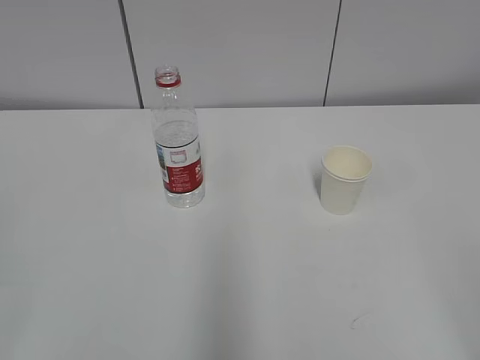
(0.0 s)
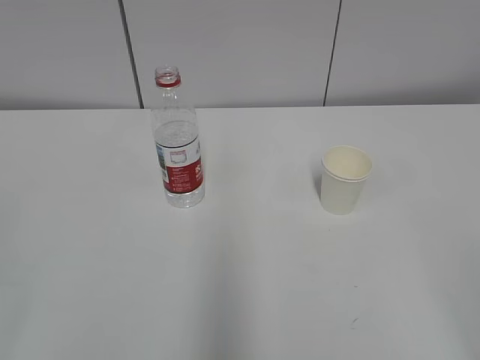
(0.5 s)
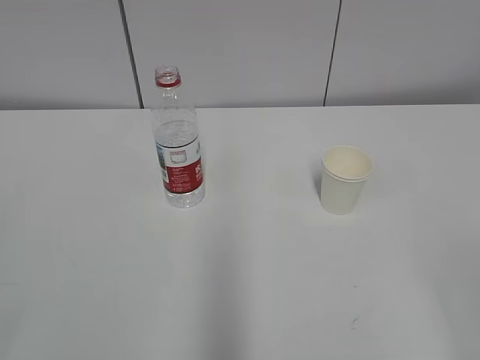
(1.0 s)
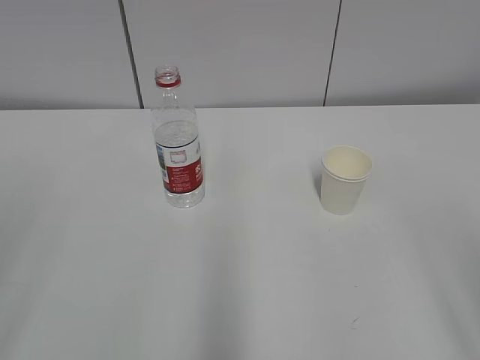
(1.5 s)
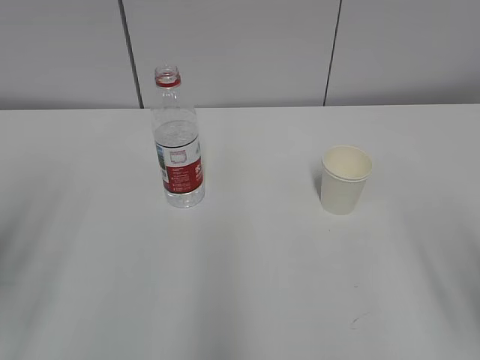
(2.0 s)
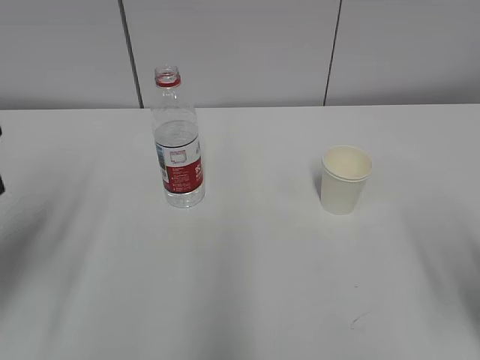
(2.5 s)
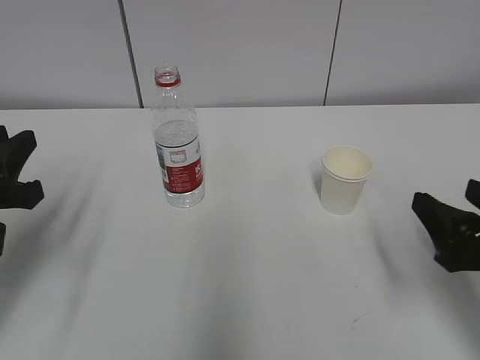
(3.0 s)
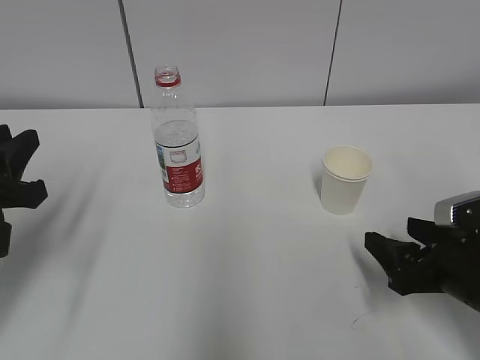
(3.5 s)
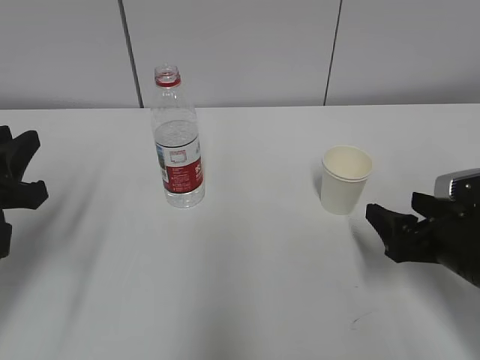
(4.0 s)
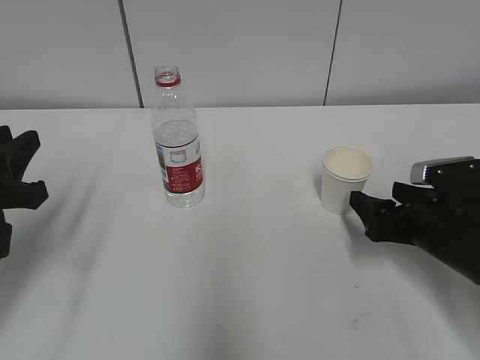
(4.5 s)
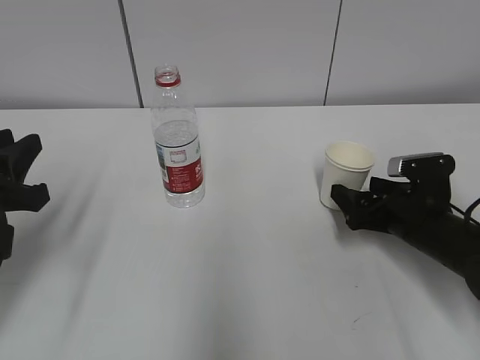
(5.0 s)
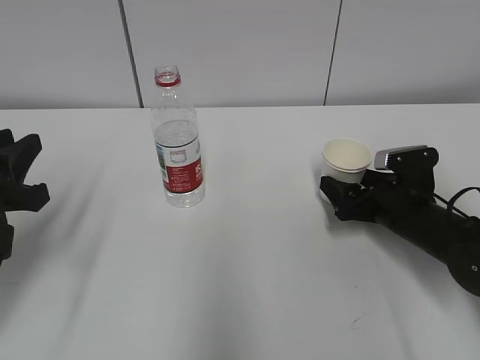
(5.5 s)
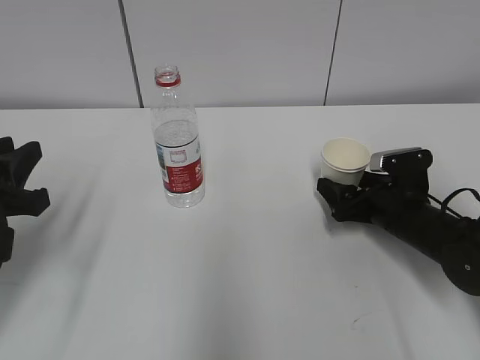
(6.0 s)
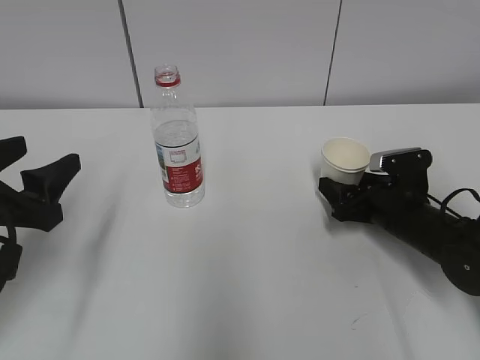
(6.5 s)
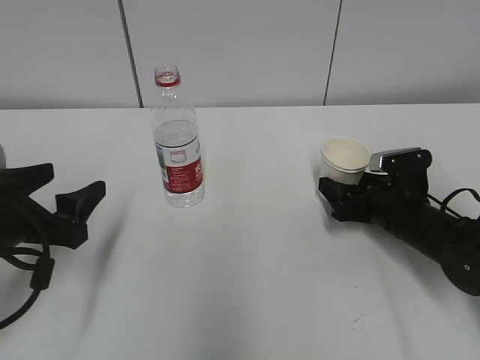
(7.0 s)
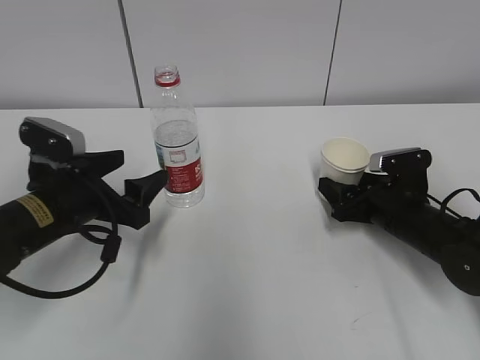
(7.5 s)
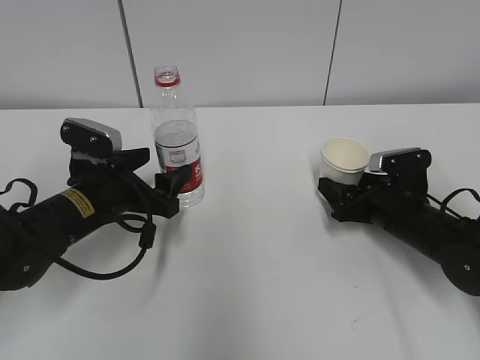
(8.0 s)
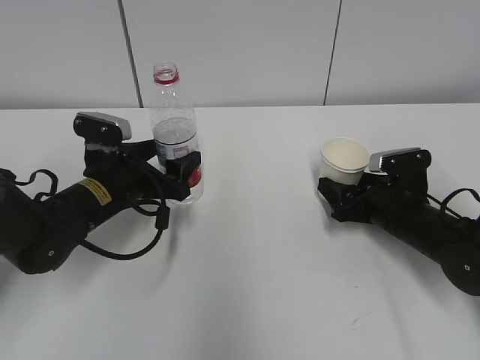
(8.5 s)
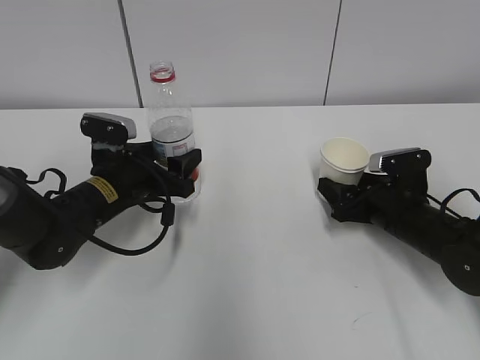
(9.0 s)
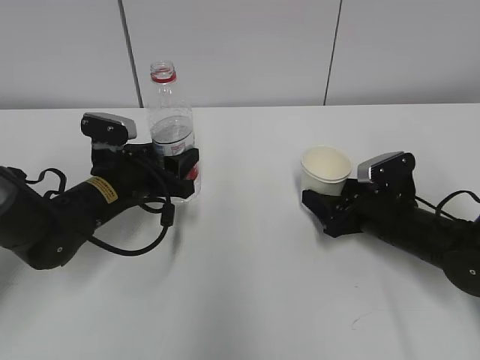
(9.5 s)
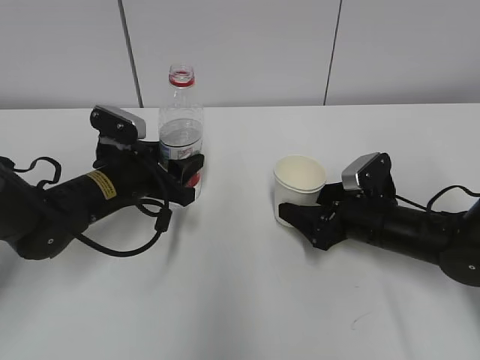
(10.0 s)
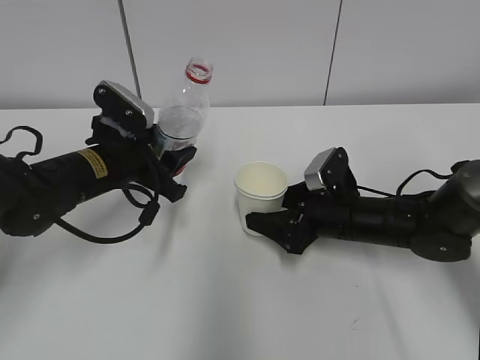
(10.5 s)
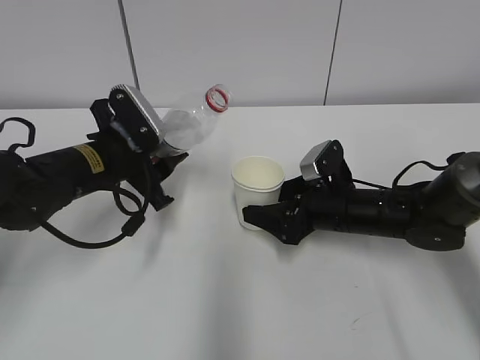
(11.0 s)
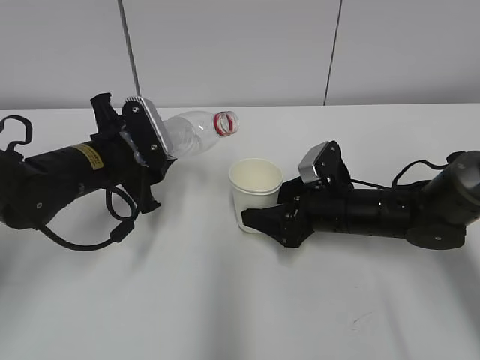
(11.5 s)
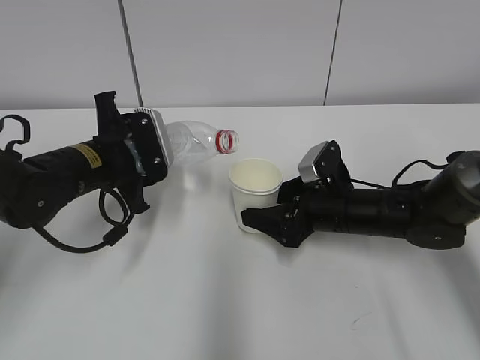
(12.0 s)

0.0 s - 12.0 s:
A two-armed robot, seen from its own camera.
Step, 0.0 s - 5.0 s: Grab the paper cup with the right hand.
Step, 5.5 s - 7.5 s: Grab the water bottle with the left hand.
2.0 s - 4.0 s: The right gripper goes approximately 20 cm forward and downward; the left gripper moves forward and downward, approximately 15 cm.
4.0 s - 6.0 s: The right gripper moves forward and downward, approximately 10 cm.
6.0 s - 8.0 s: The left gripper goes some 15 cm forward, to the right and downward, and opens. The right gripper closes up.
8.0 s - 10.0 s: The left gripper closes up.

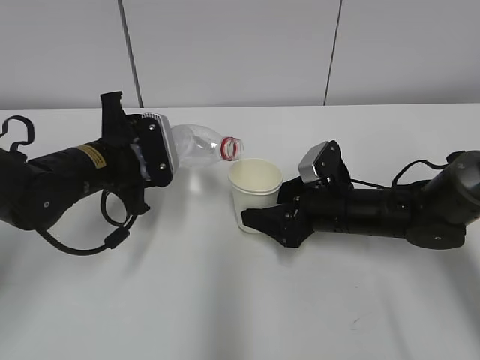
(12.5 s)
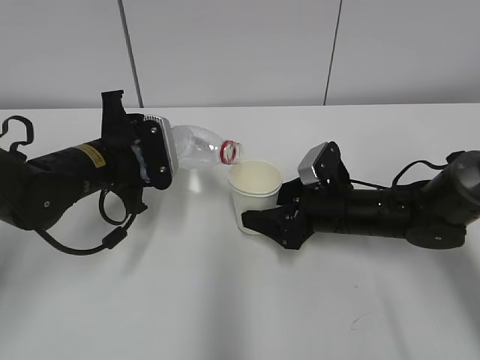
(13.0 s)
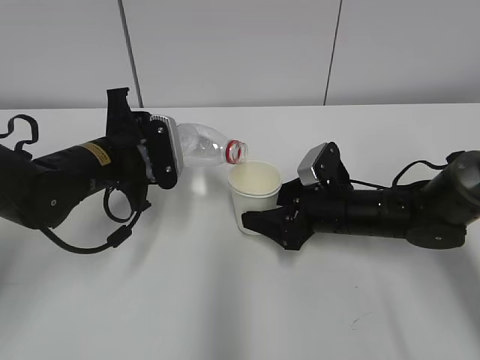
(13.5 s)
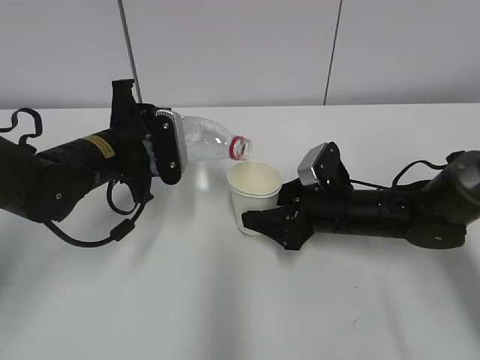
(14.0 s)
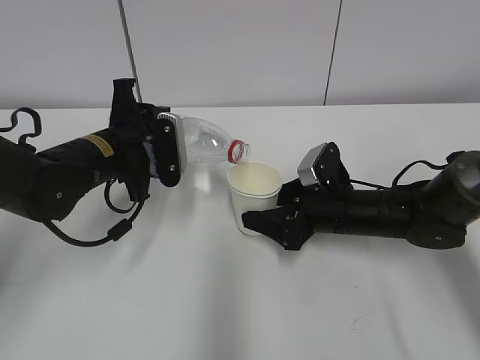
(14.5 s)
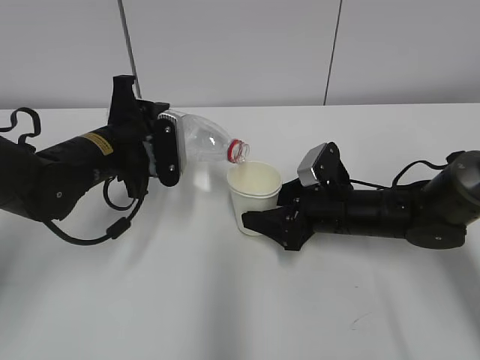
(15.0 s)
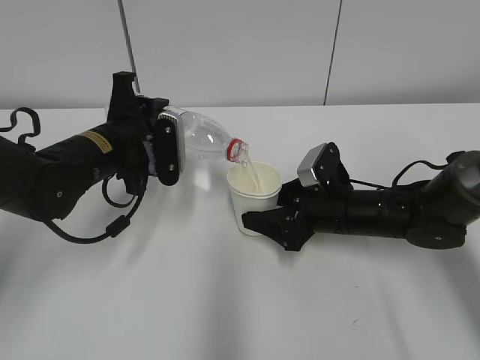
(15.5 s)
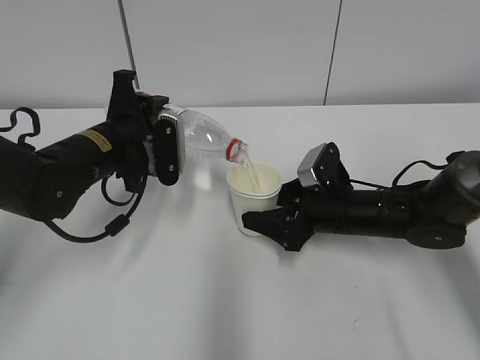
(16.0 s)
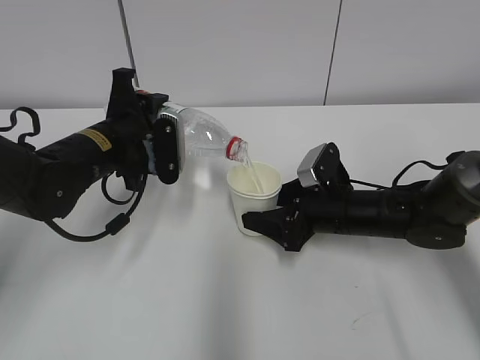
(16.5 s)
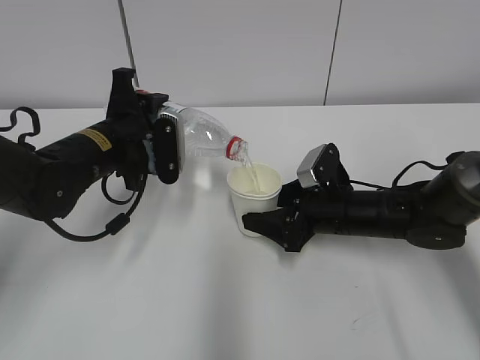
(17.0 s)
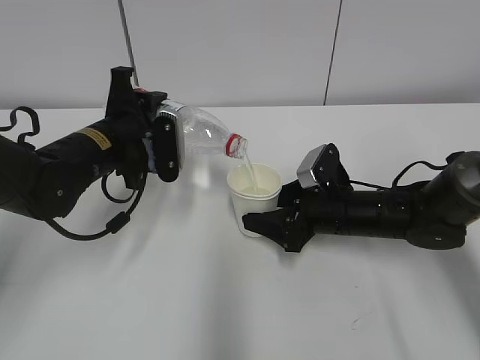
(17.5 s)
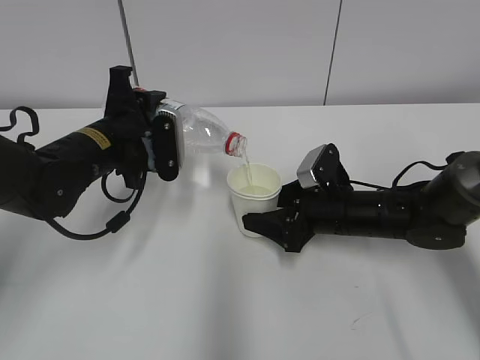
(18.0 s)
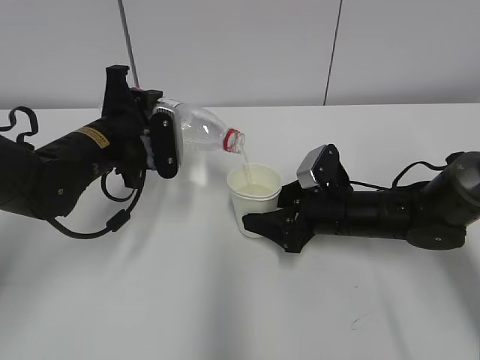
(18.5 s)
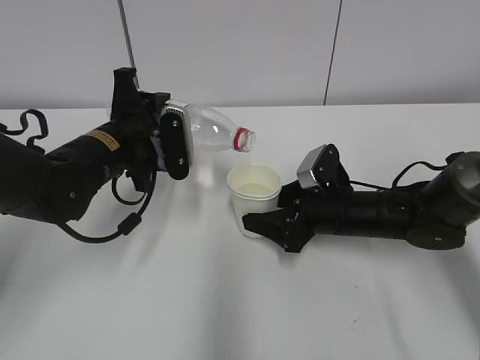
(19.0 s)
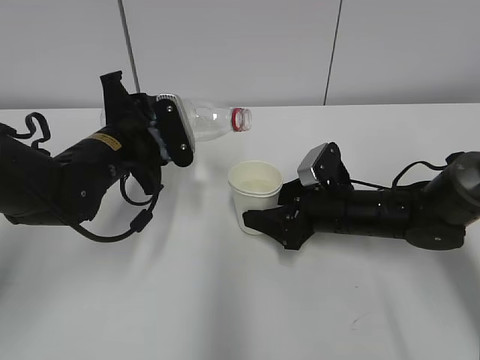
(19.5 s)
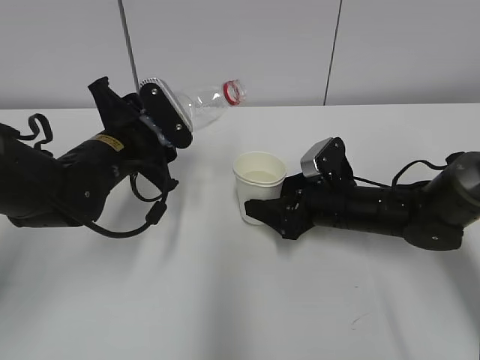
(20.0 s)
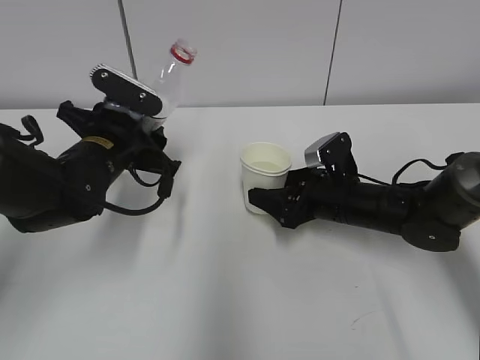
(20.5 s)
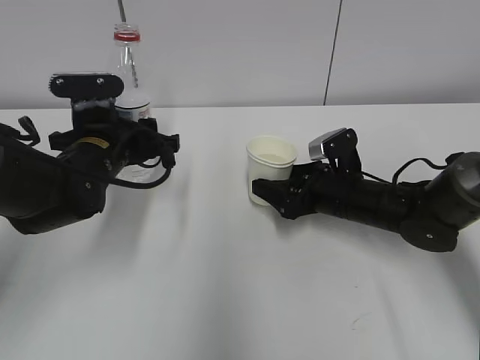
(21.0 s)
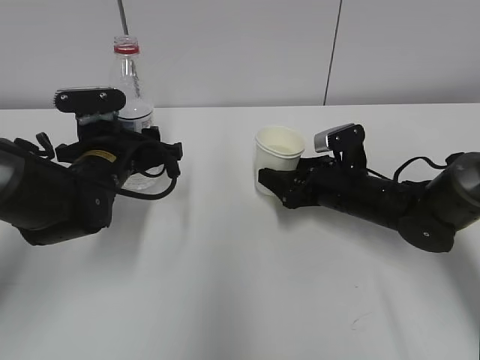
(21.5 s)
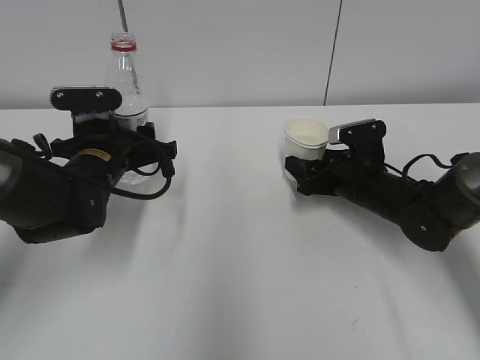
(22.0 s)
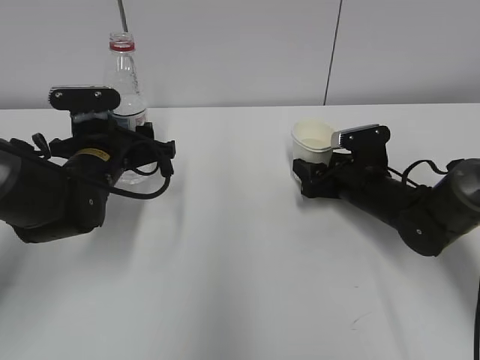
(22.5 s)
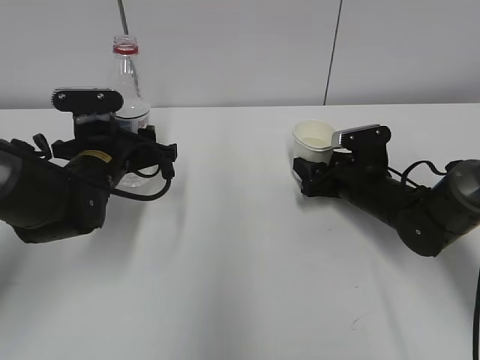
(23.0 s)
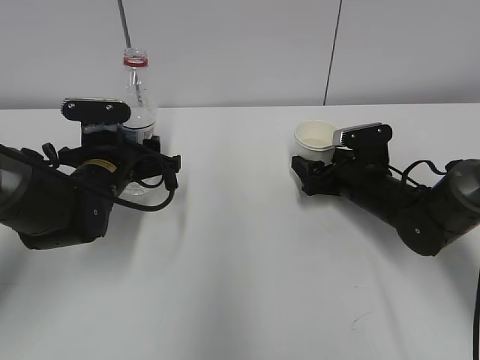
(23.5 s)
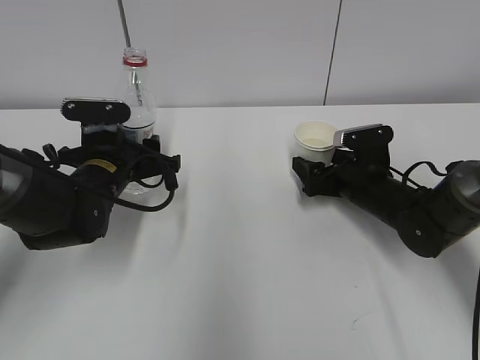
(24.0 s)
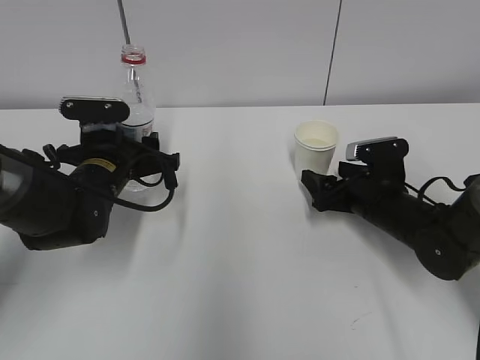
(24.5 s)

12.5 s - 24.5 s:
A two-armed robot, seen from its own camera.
Step, 13.0 s - 16.0 s: Pour water with the left hand.
Step, 16.5 s - 17.5 s: Collect water with the left hand.
Step, 19.5 s - 22.0 s: Place the water bottle with the left hand.
12.5 s - 16.5 s: The grippers make only small movements.
16.5 s - 18.5 s: Both grippers stay put.
22.5 s - 24.5 s: The right gripper opens.

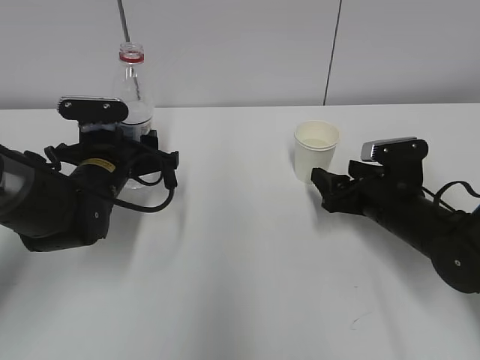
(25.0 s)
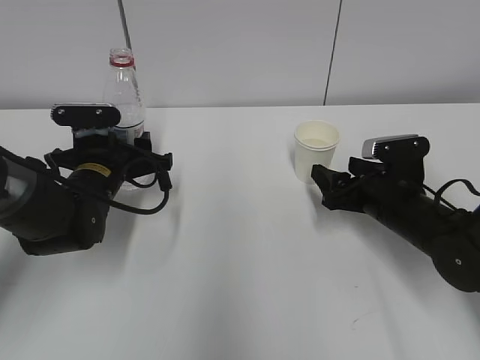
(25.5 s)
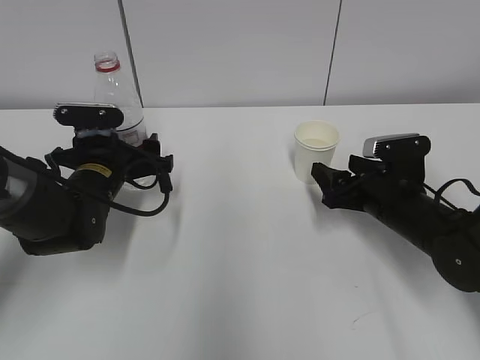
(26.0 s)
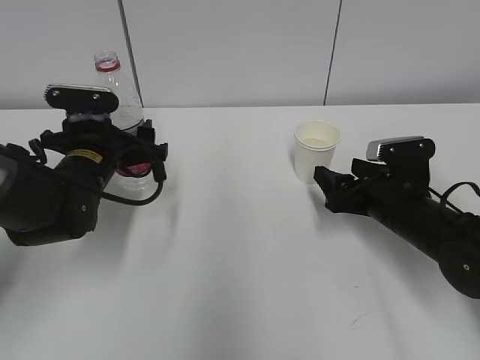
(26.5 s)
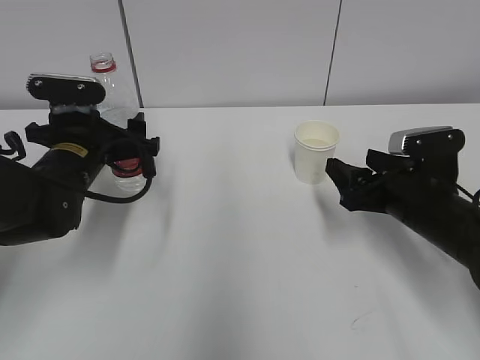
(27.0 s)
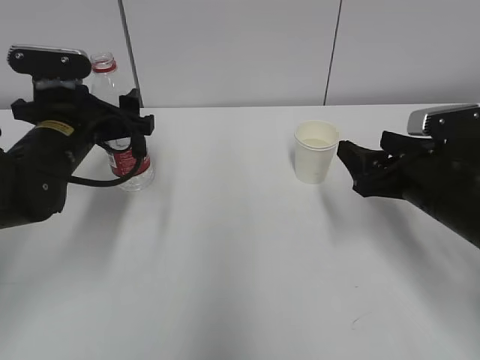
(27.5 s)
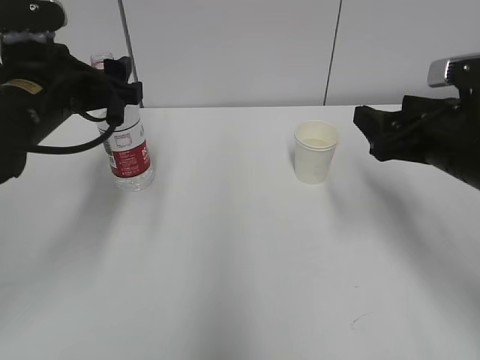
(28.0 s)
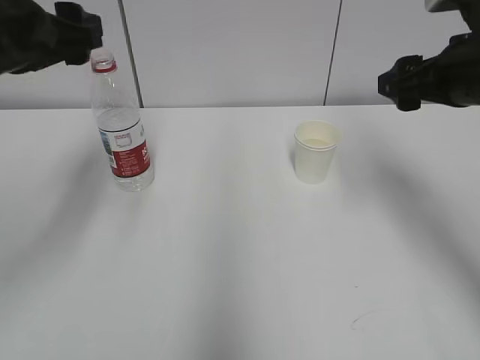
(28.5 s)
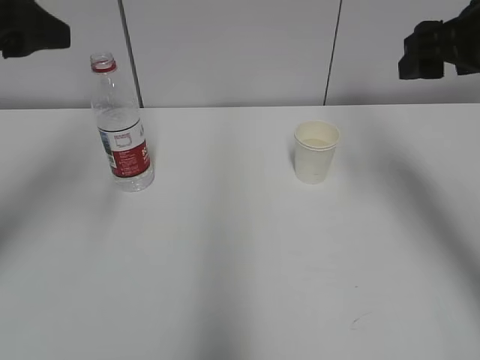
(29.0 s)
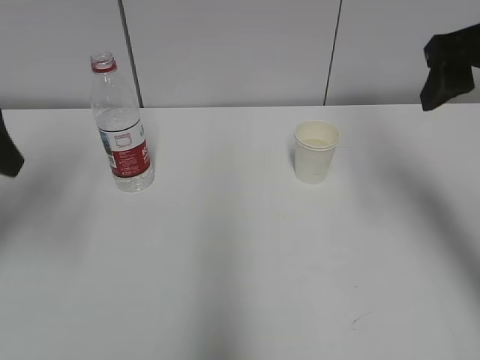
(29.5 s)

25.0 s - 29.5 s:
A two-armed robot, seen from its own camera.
25.0 s - 27.0 s: The right gripper moves approximately 5 cm, while the left gripper opens up.
27.0 s - 29.5 s: The right gripper goes approximately 20 cm upward. The left gripper goes some 20 cm upward, to the left and backward.
